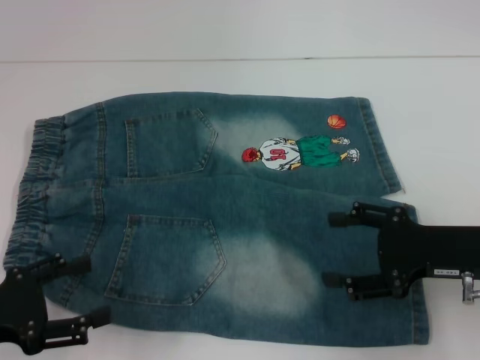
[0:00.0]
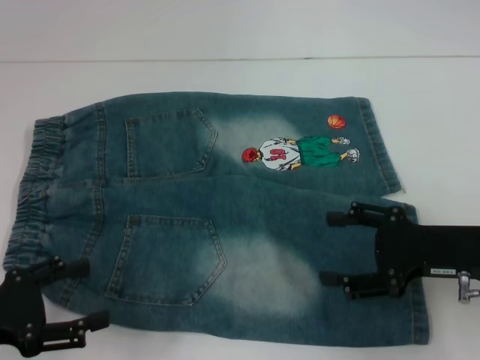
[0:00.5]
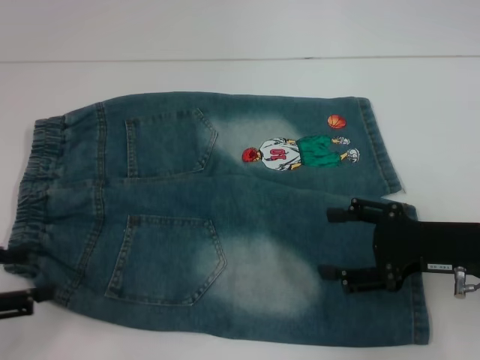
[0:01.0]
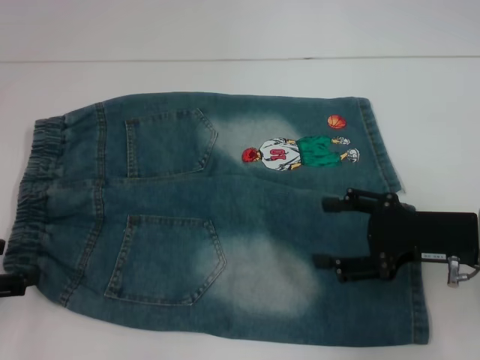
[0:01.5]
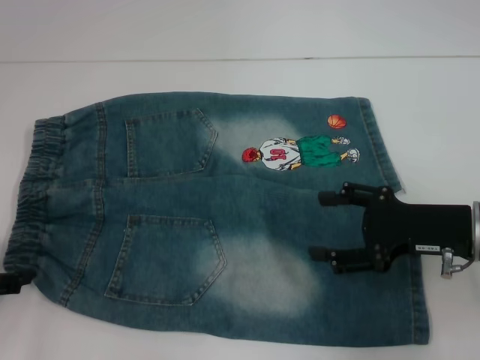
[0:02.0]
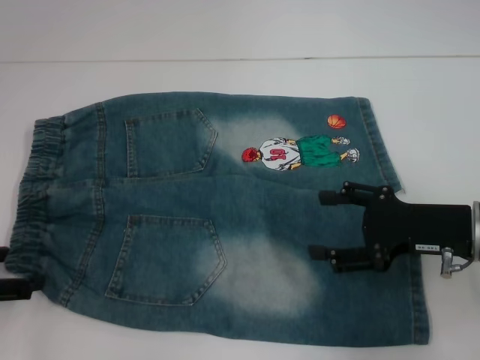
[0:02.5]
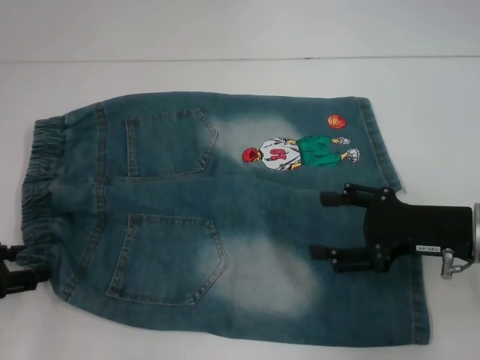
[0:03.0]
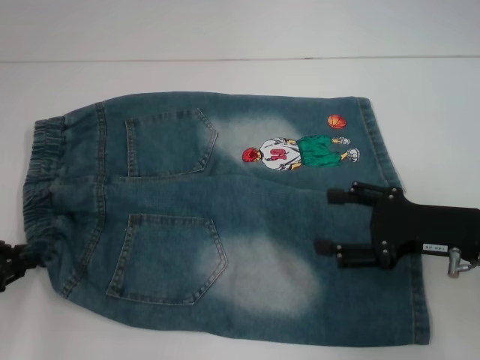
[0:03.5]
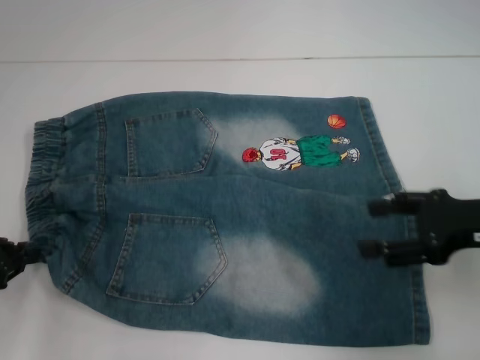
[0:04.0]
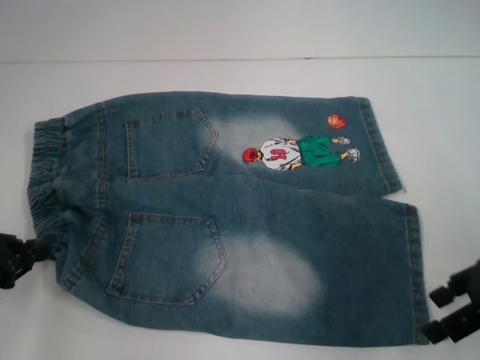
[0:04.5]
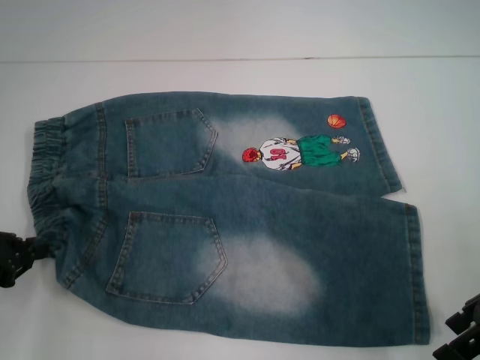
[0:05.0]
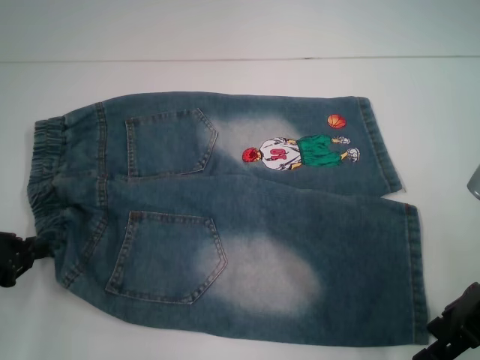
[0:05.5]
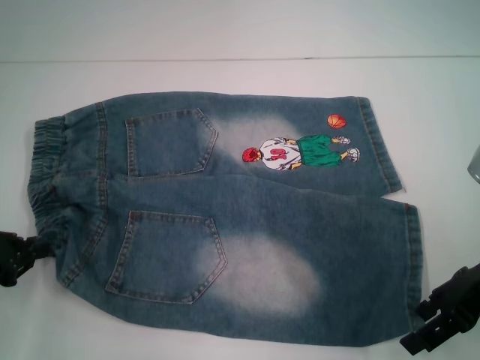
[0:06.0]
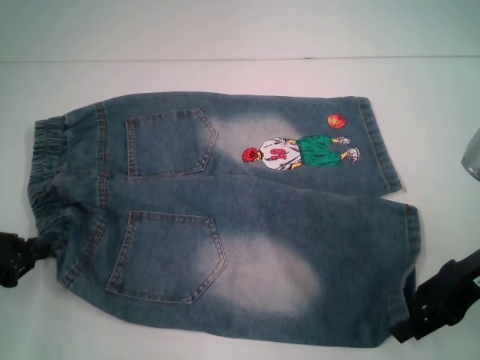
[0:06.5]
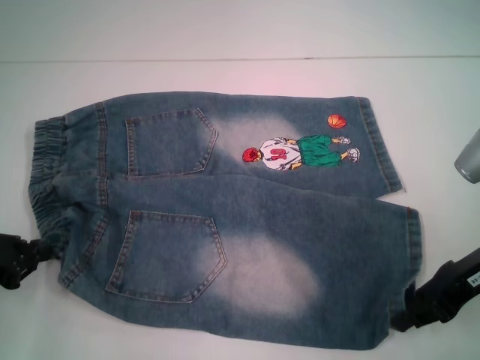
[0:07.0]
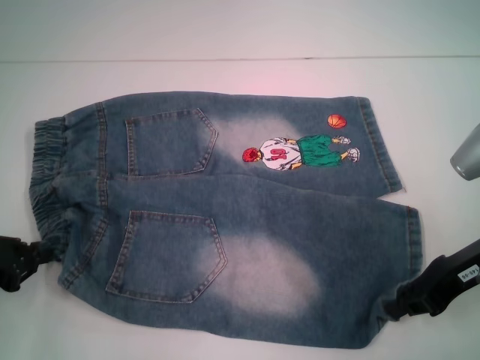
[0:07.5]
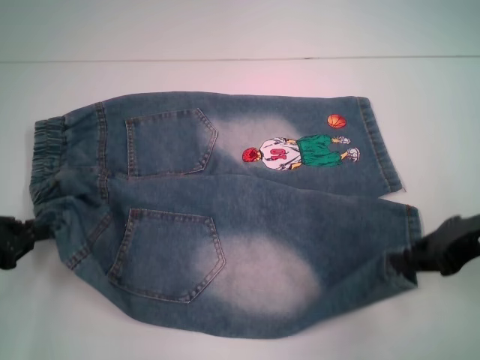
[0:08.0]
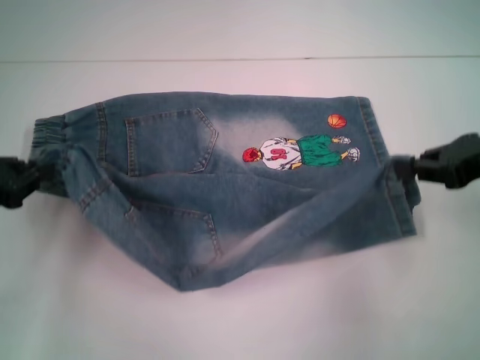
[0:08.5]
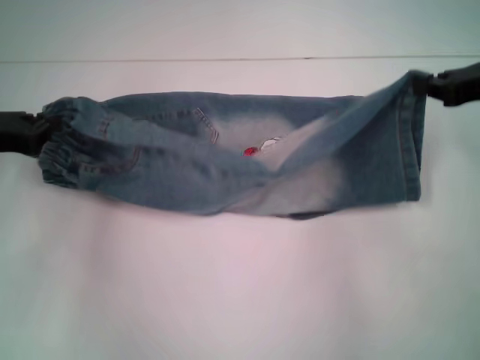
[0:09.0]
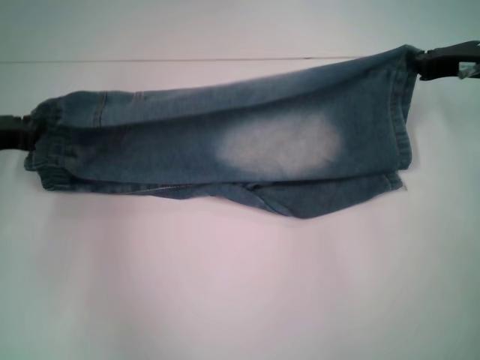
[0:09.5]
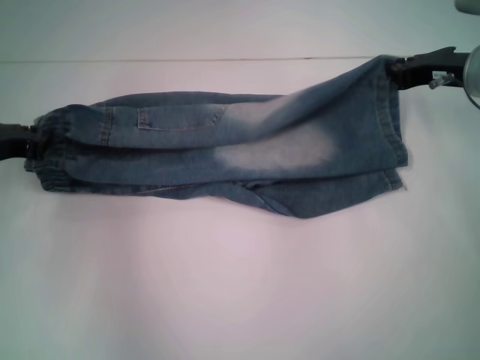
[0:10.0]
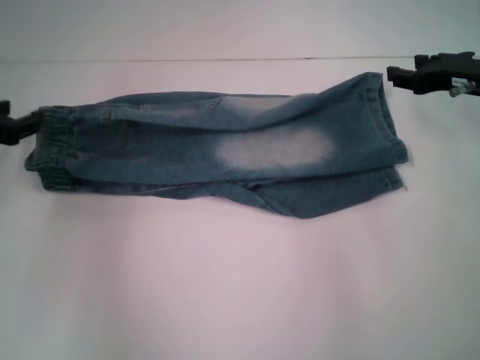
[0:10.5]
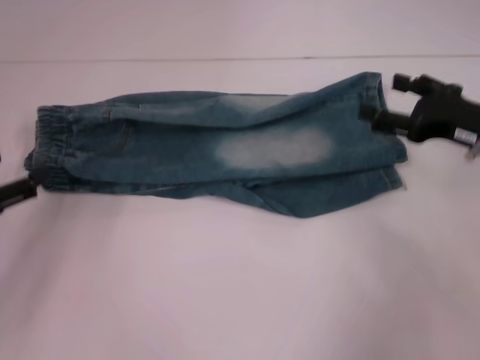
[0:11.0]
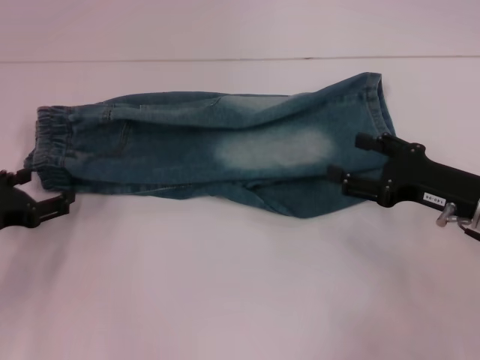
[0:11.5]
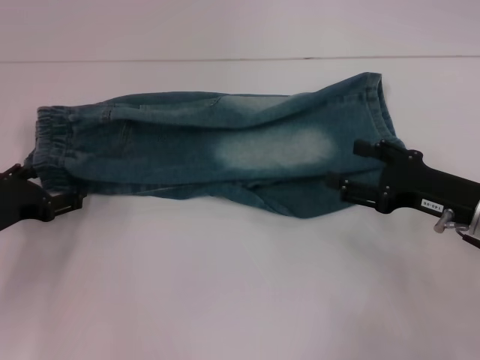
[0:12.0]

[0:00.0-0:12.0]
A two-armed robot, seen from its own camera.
Step, 0:00.0 to 0:03.0: Hold the lower left waistband with your left hand.
Step, 0:03.5 to 0:06.5: Grab the lower right pant leg with your right hand.
Step, 0:07.0 to 0:10.5: Fold upward with your right hand.
0:00.0 to 0:02.0: The left gripper ends up about 5 cm from where it was.
0:02.0 to 0:04.0: The right gripper ends up some 5 cm from where it was. The left gripper closes its fingers.
0:06.0 to 0:08.0: The right gripper closes its fingers.
0:08.0 to 0:10.0: Both grippers travel together forward, roughly 10 cm.
0:10.0 to 0:12.0: The left gripper shifts approximately 10 cm backward and downward, and opens its fingers, while the right gripper shifts about 15 cm backward and downward, and opens its fingers.

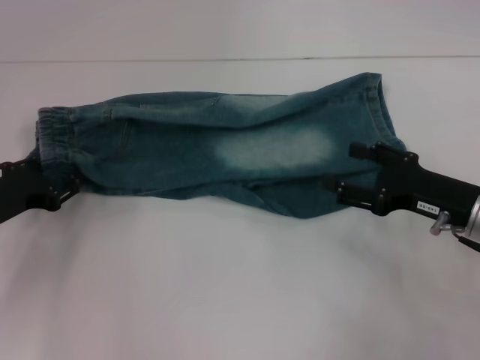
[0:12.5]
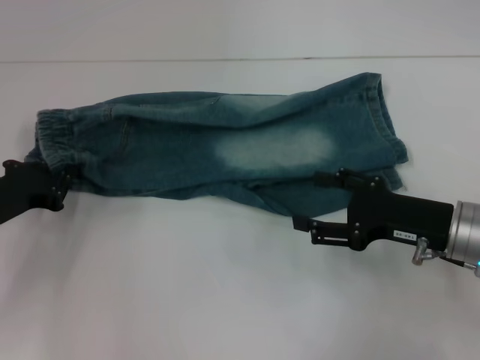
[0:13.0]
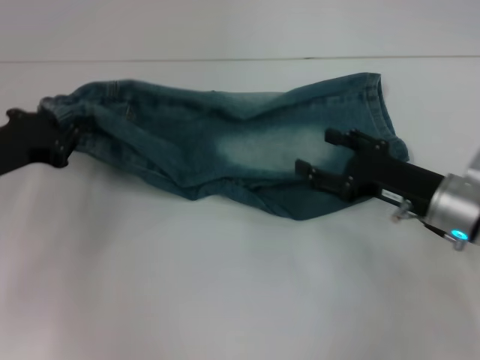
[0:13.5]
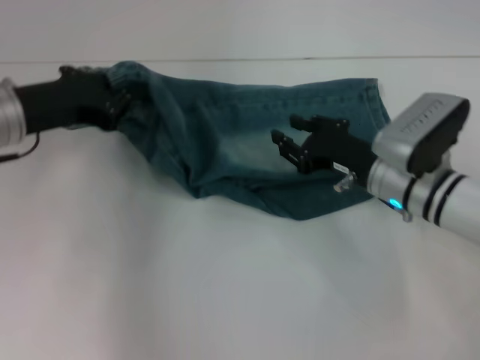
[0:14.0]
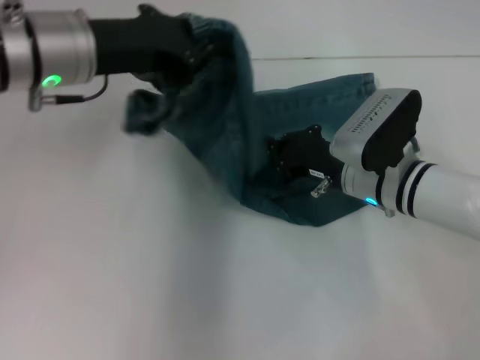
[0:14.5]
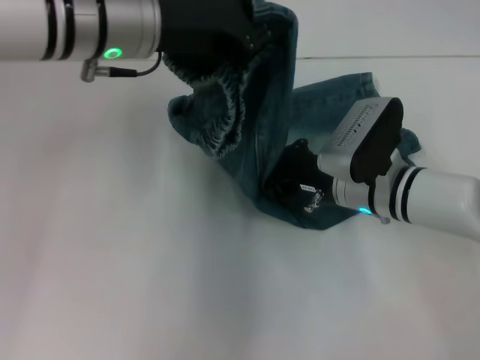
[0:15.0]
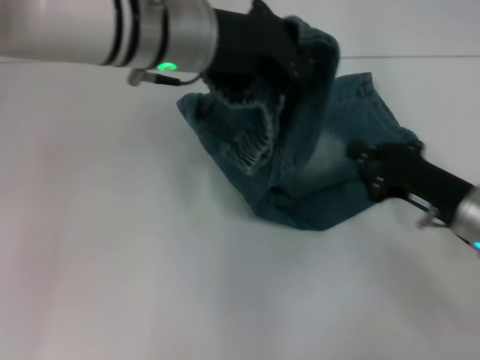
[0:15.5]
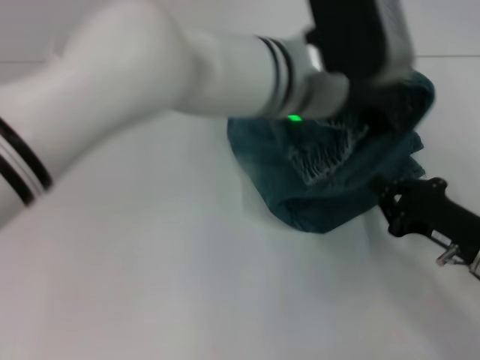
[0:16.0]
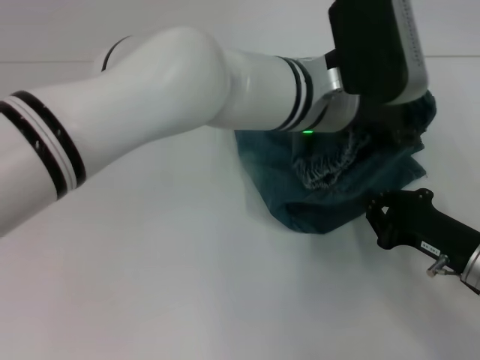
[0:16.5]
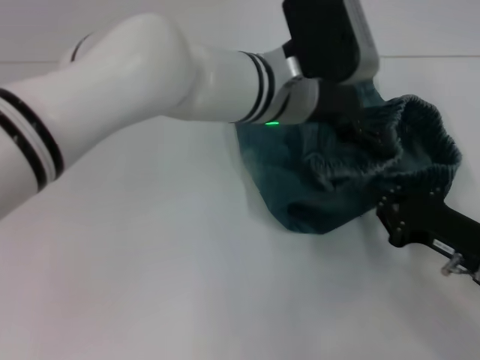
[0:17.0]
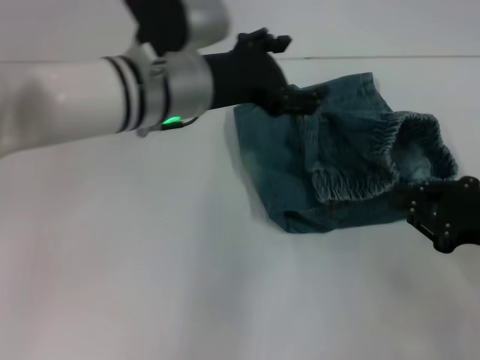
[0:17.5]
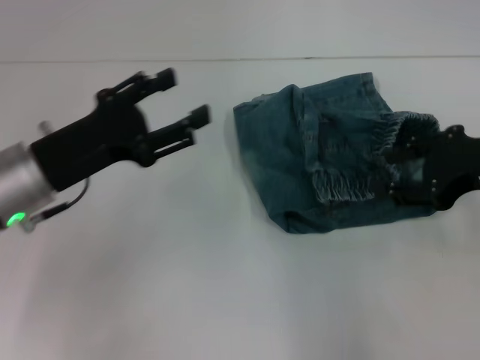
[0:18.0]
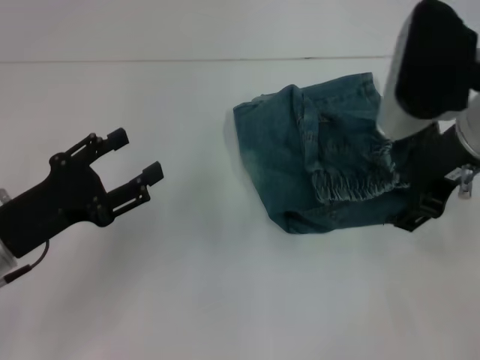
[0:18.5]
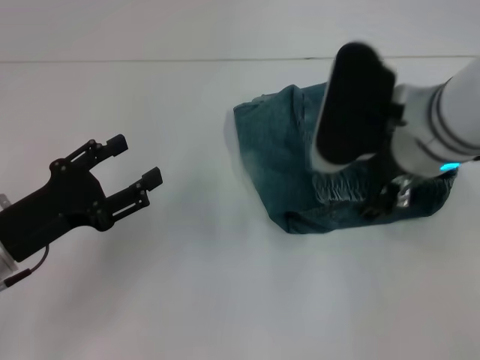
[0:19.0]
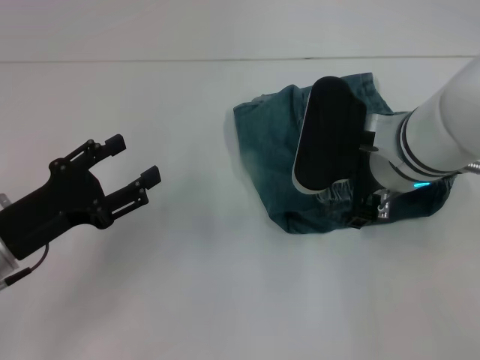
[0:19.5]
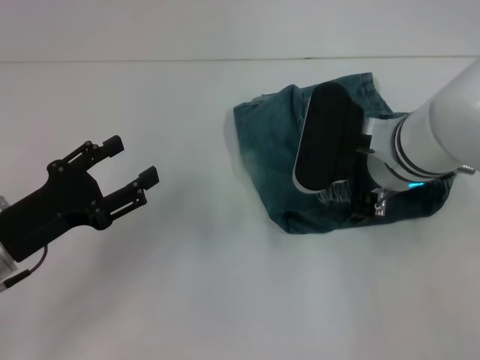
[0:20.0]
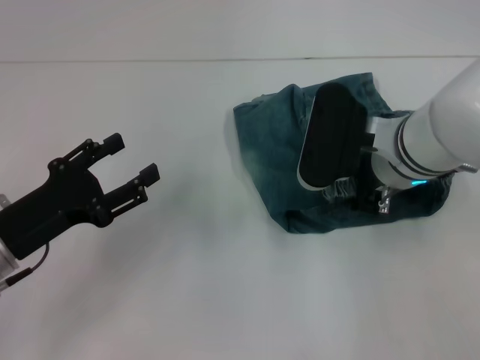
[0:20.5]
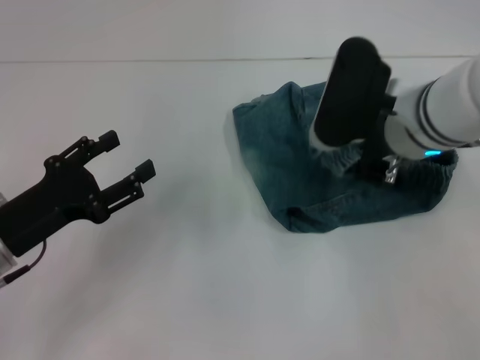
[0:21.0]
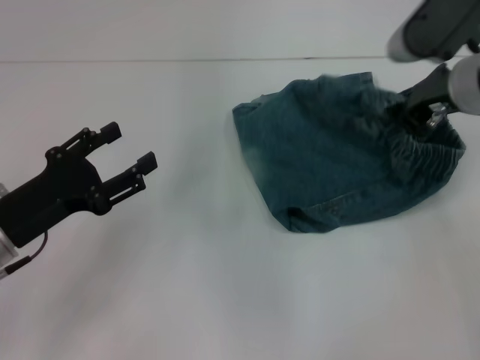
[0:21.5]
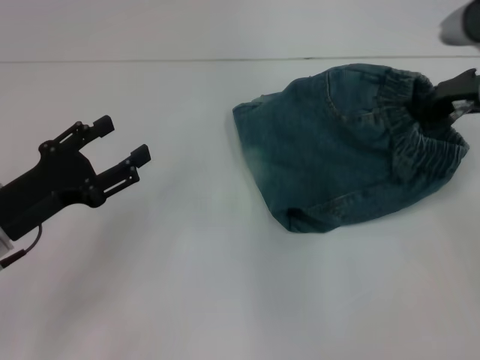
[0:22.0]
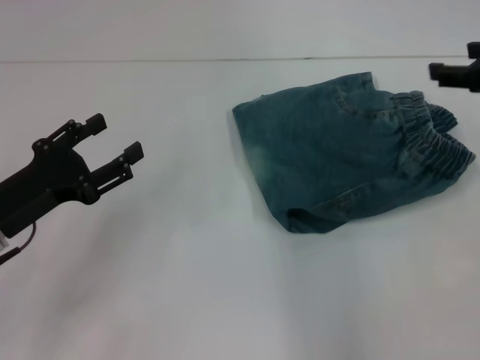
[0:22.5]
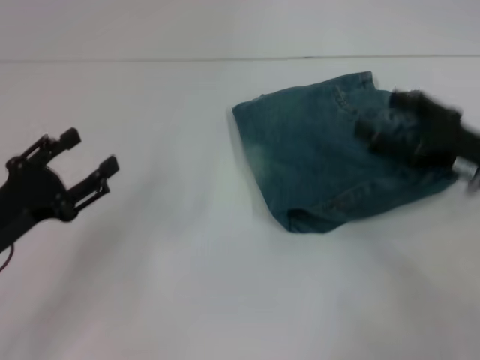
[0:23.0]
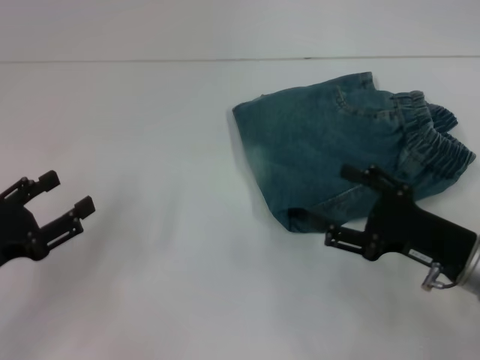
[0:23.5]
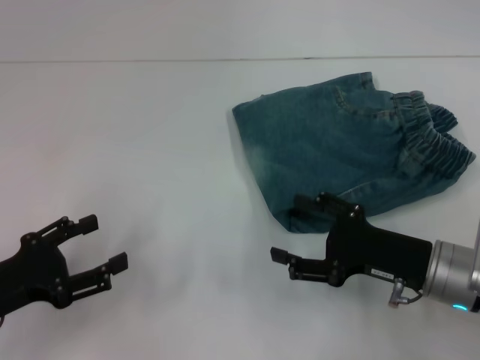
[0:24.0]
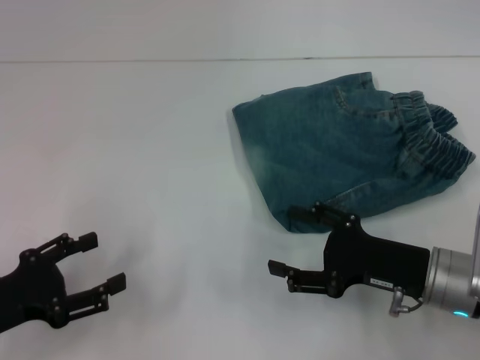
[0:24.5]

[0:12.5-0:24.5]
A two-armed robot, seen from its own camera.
Step, 0:12.5 to 0:15.0: Press the middle of the pants with your right hand.
Step, 0:15.5 to 0:17.0: Fold to the right with your left hand.
Step, 0:17.5 to 0:22.5: Adjust the pants with your right hand.
0:12.5 to 0:14.5: The left gripper travels upward and to the right by some 20 cm, and closes up. Meanwhile the right gripper goes some 15 cm to the left and forward, and closes.
0:14.5 to 0:16.5: The left gripper is displaced to the right by some 20 cm, and opens its fingers. Meanwhile the right gripper goes some 15 cm to the right and backward.
0:16.5 to 0:18.5: The right gripper travels upward and to the left by roughly 25 cm, and opens up; the left gripper travels to the left by roughly 30 cm, and opens its fingers.
0:18.5 to 0:20.5: The right gripper heads downward, covering roughly 10 cm.
0:20.5 to 0:22.5: The right gripper goes roughly 20 cm to the right and upward, and closes and opens again.
0:22.5 to 0:24.5: The left gripper shifts about 5 cm backward. Meanwhile the right gripper is displaced downward, backward and to the left by approximately 20 cm, and opens its fingers.
